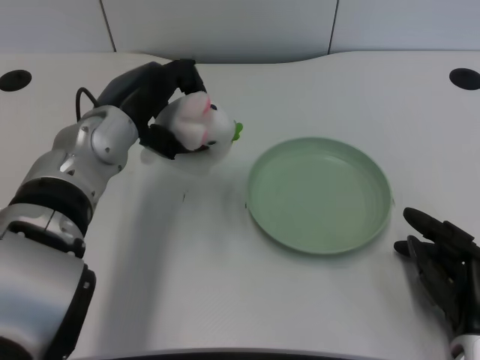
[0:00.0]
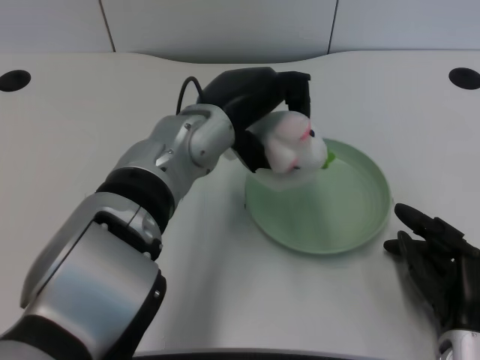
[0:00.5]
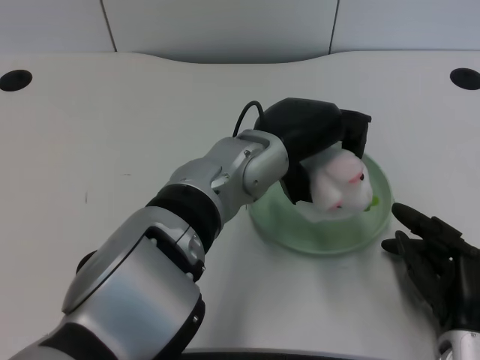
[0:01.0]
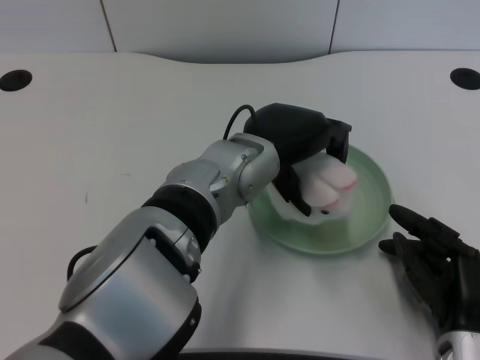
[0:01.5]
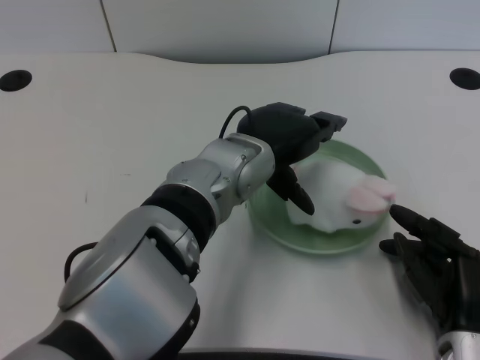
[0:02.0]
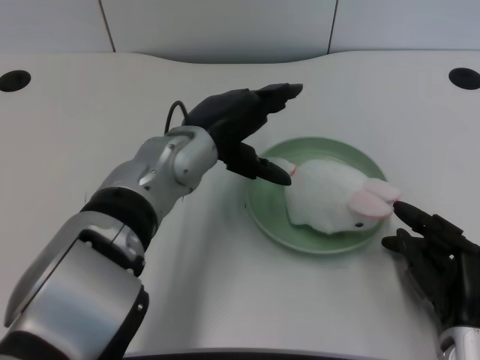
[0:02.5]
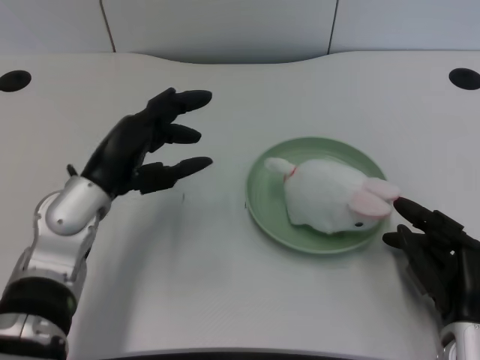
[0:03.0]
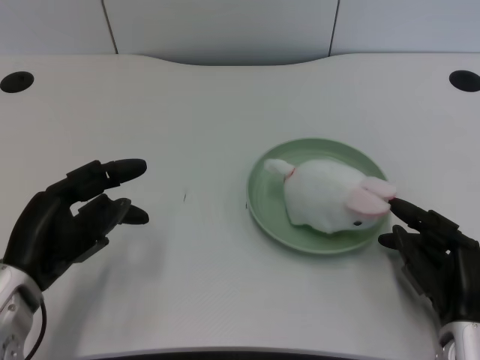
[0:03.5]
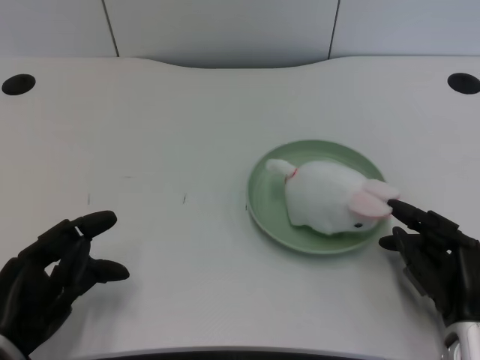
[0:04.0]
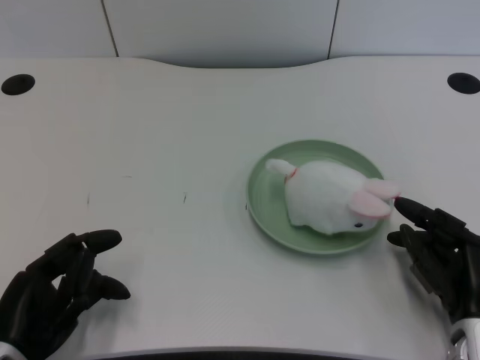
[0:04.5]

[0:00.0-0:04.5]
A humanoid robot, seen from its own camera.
Task of the whole recording: pick up the rabbit doll from the table and place it on the plate.
Step, 0:00.0 to 0:01.5: Place the rabbit doll into the plate with the left gripper.
0:00.0 to 0:02.0: The left hand heads to the right, covering roughly 15 cm.
0:02.0 to 0:04.5: The left hand heads to the left, backward and downward, covering about 30 cm.
